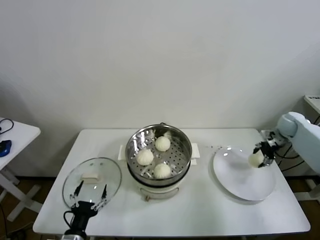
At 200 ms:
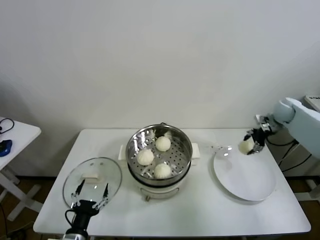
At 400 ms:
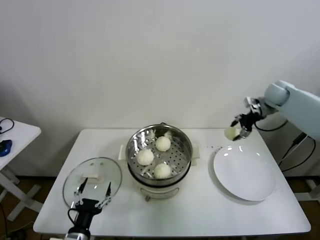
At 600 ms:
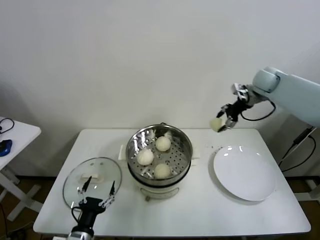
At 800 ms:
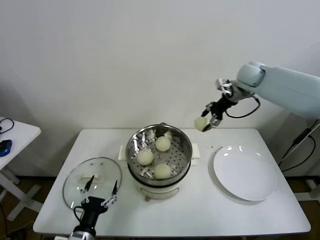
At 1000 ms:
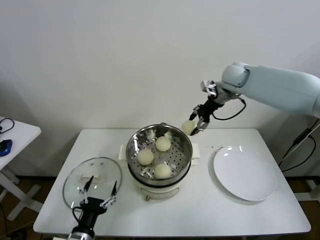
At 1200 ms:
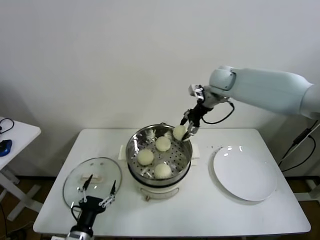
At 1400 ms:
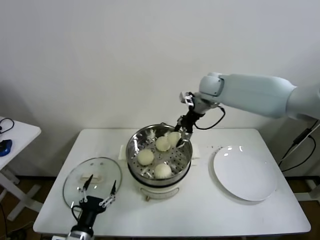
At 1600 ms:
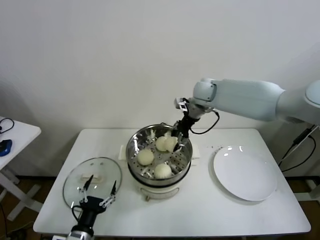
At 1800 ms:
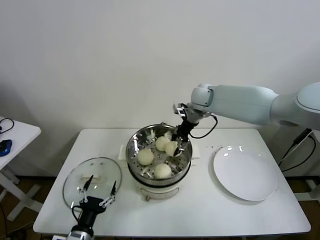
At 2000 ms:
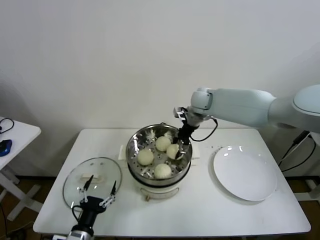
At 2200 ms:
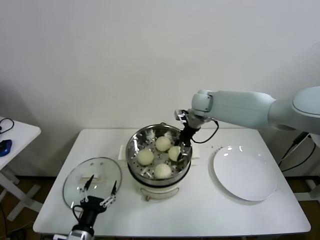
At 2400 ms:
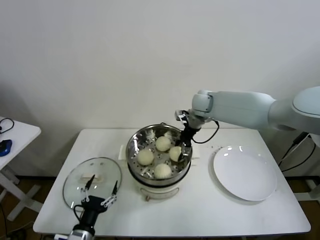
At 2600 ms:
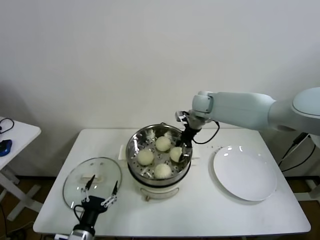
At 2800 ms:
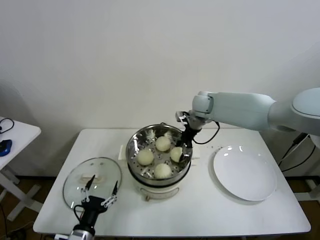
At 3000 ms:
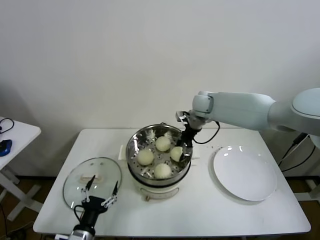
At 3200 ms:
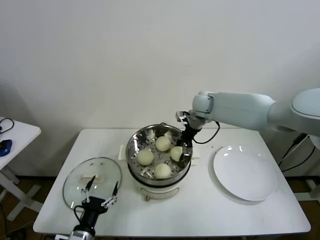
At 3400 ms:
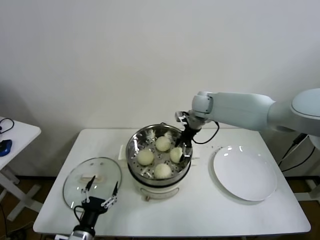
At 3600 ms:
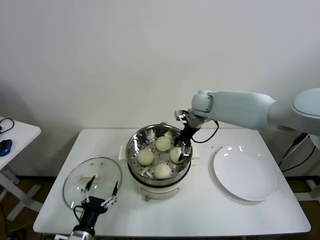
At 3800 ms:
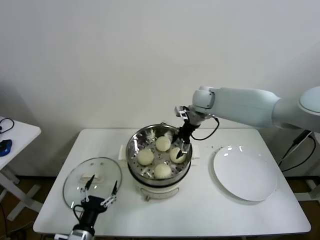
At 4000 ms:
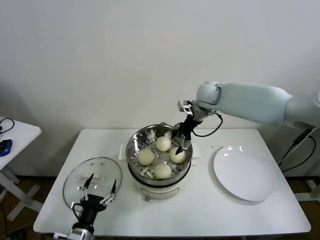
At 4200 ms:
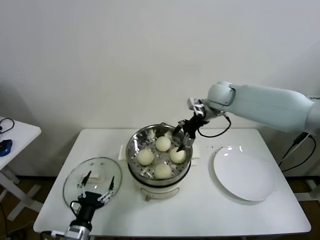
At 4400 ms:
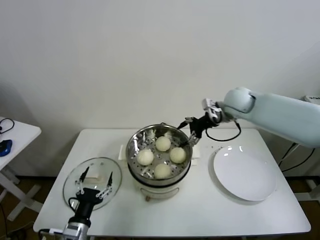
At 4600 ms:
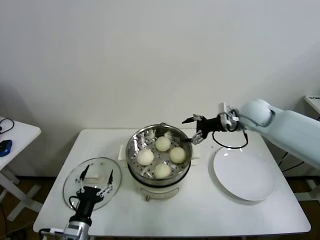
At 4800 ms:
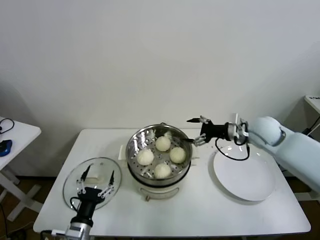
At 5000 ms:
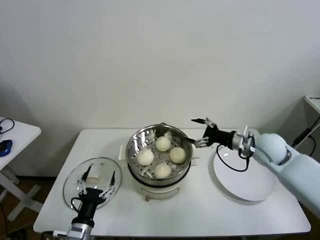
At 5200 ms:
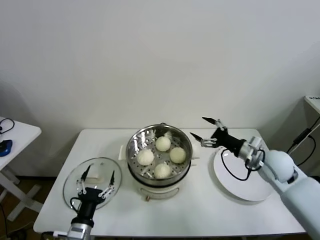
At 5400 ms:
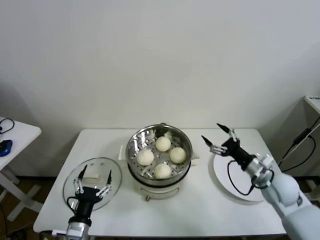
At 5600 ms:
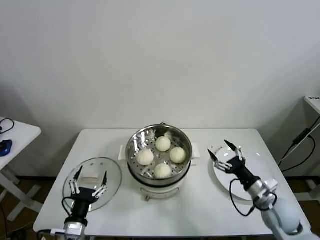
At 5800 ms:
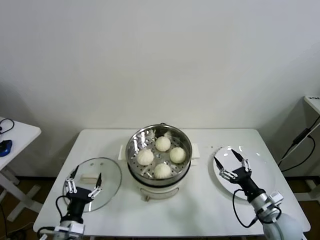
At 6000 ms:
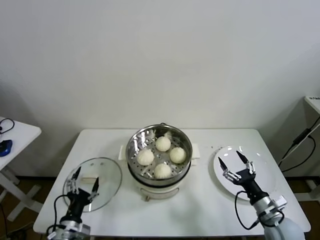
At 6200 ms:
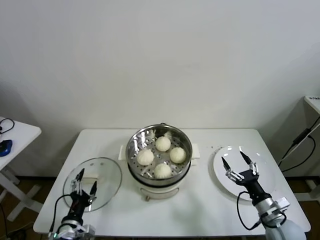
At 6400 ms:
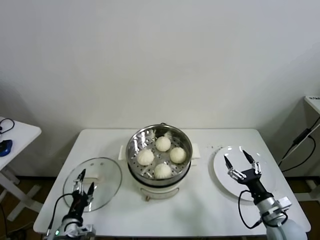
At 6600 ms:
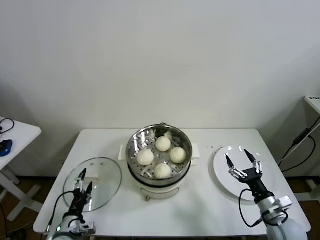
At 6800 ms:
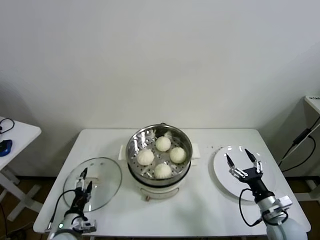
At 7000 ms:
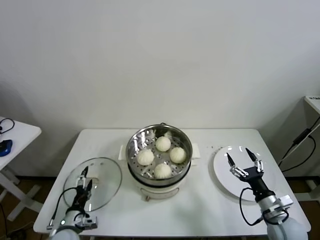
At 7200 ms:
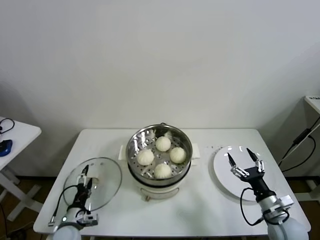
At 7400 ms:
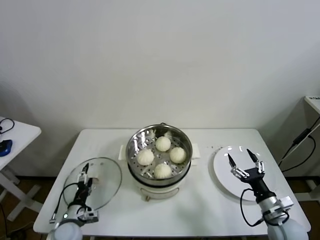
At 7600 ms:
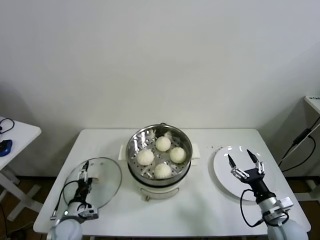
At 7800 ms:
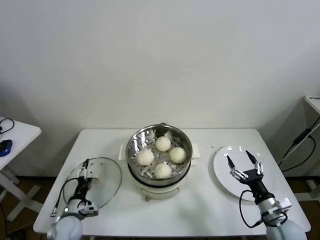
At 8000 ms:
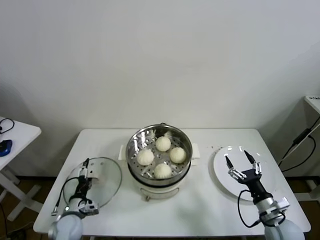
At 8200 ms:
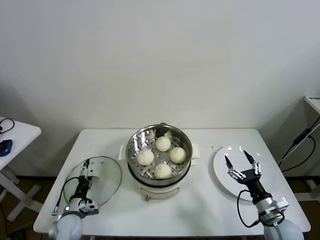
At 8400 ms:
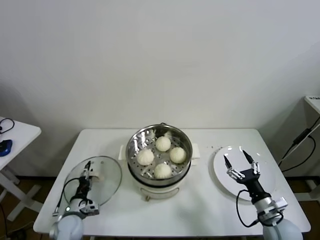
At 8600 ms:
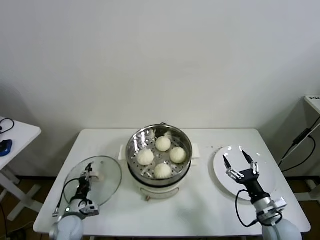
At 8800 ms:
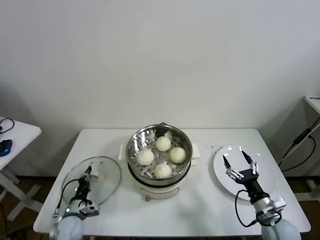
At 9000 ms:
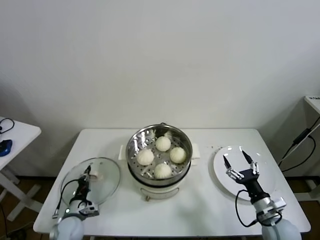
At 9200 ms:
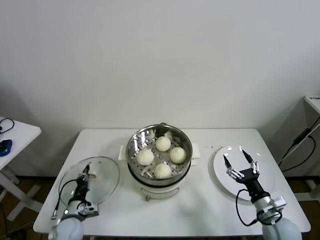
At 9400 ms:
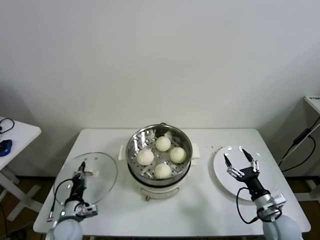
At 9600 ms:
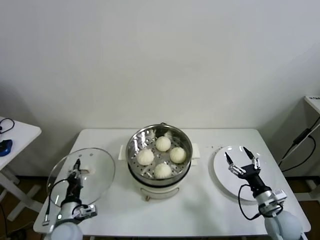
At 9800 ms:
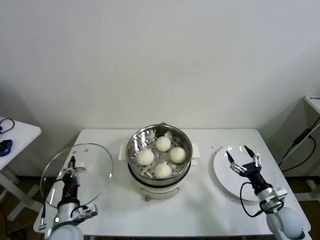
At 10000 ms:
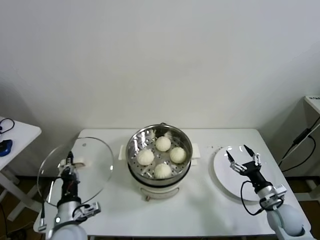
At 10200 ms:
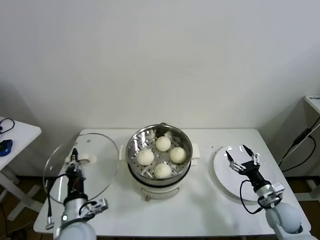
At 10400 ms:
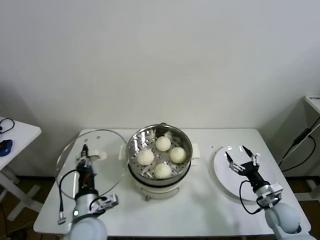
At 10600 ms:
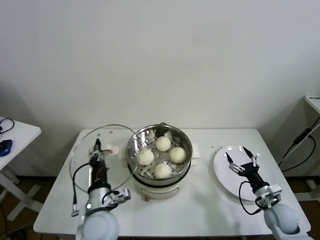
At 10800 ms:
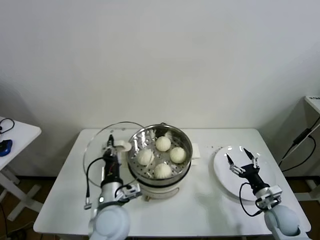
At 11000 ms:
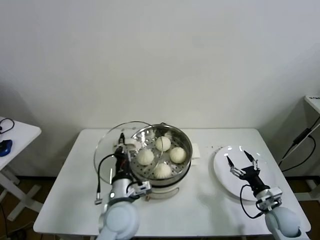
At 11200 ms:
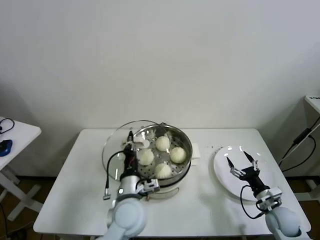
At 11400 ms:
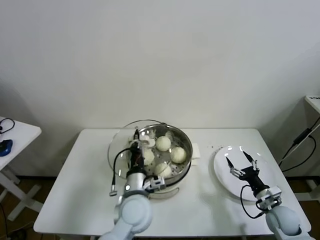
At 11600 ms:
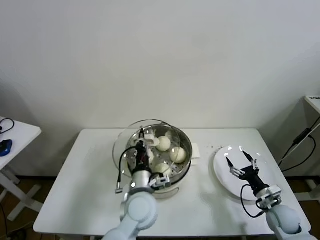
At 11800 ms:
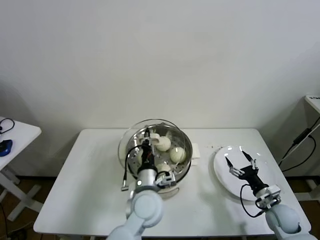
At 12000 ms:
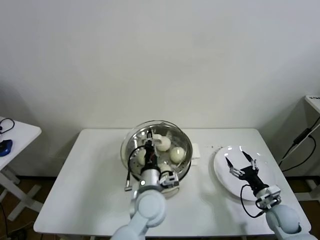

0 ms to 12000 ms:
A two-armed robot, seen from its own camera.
Task of the whole recording: take steamed baozi put them in steamer.
Step, 0 ms to 3600 ms: Place the baozi on the steamer with right gripper.
Step, 3800 ms to 8800 ms: Grasp the pot lid with left gripper.
0 ms to 1600 ms: The right gripper travels to the left by approximately 35 cm.
1600 ms to 3000 ms: The grippers make only small movements.
3000 ms to 4400 ms: The right gripper moves to the right and backward, approximately 10 cm, and opens up.
4400 ms to 6000 ms: The right gripper is displaced backward and downward by roughly 40 cm.
6000 ms to 7600 ms: The left gripper moves forward and downward, roughly 10 cm.
7600 ms to 9000 ms: The left gripper closes up.
9000 ms to 10400 ms: The left gripper heads upward and to the right, covering roughly 20 cm. Meanwhile the right gripper travels forward by about 5 cm.
10400 ms to 12000 ms: The left gripper goes approximately 20 cm to the right and forward.

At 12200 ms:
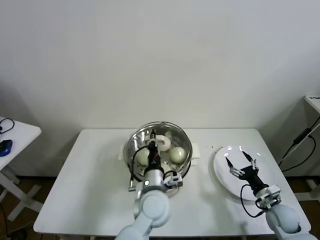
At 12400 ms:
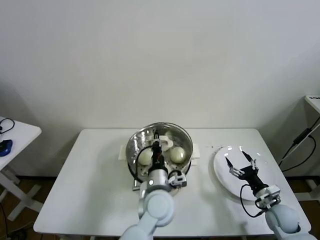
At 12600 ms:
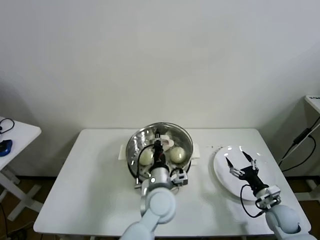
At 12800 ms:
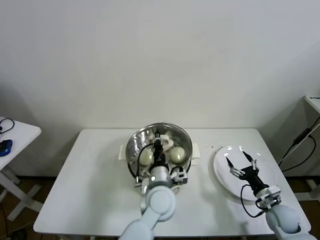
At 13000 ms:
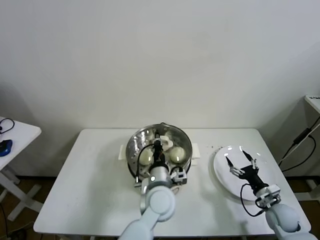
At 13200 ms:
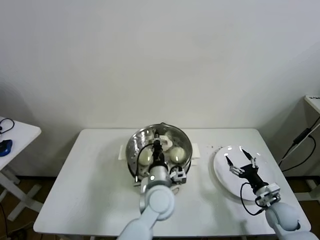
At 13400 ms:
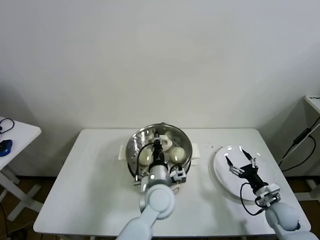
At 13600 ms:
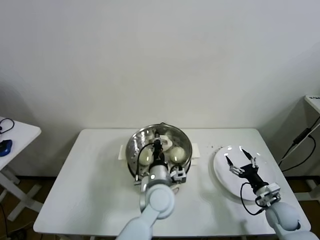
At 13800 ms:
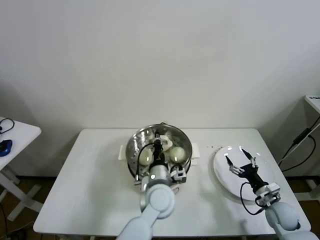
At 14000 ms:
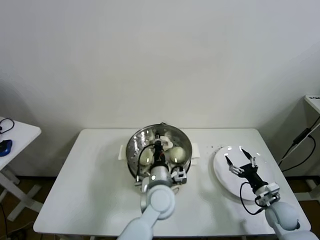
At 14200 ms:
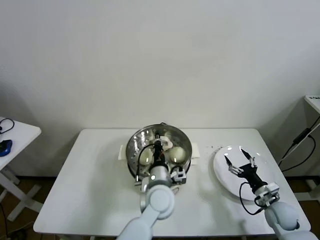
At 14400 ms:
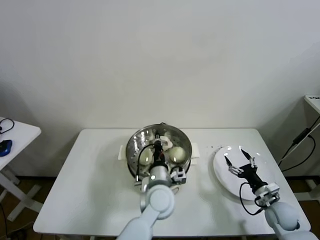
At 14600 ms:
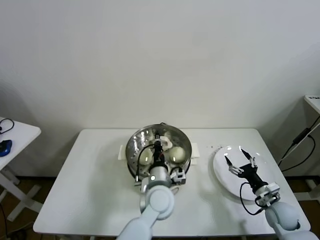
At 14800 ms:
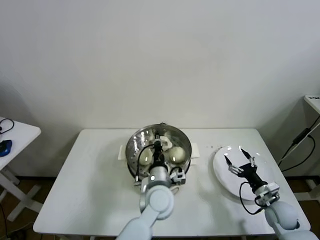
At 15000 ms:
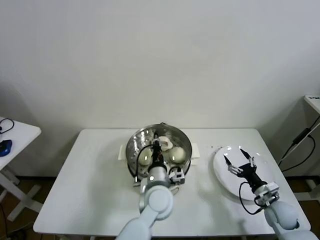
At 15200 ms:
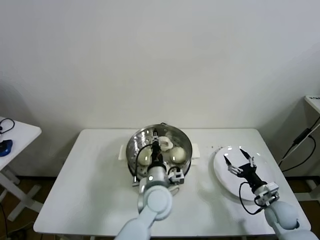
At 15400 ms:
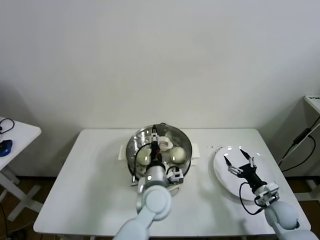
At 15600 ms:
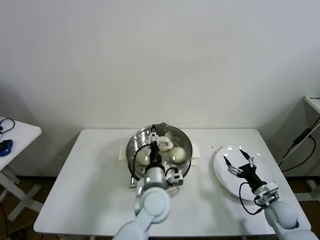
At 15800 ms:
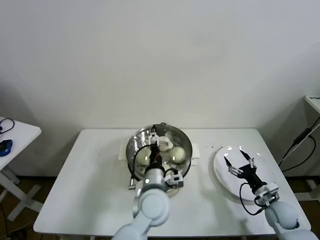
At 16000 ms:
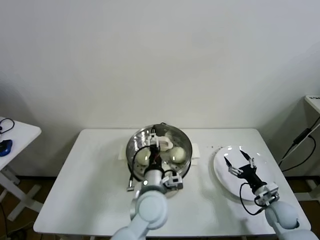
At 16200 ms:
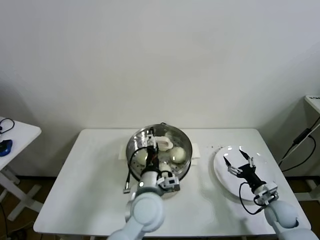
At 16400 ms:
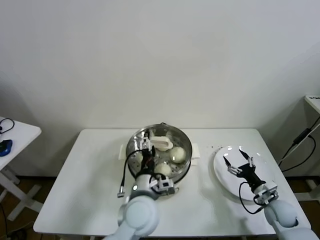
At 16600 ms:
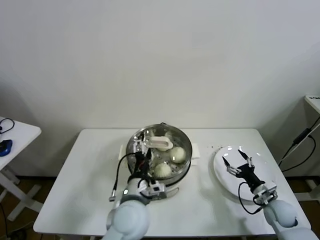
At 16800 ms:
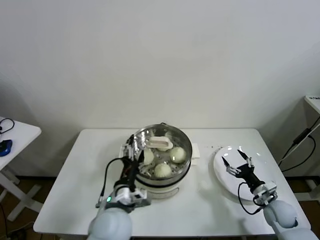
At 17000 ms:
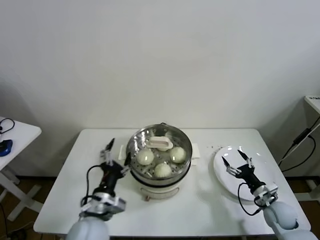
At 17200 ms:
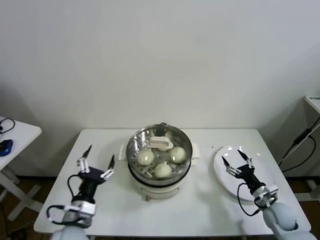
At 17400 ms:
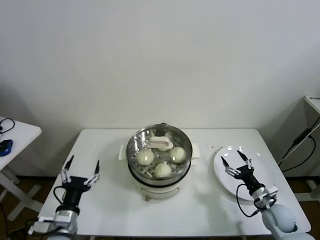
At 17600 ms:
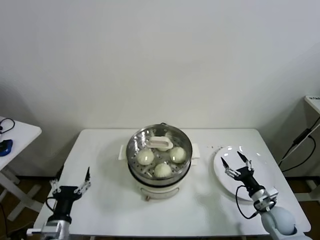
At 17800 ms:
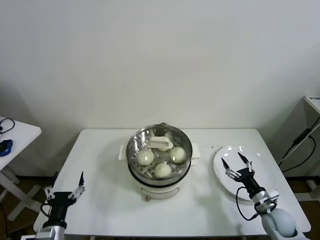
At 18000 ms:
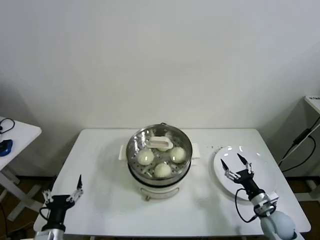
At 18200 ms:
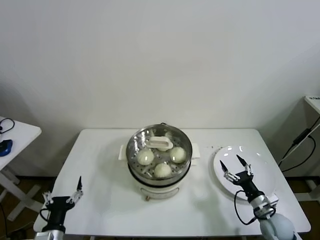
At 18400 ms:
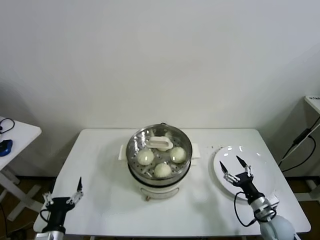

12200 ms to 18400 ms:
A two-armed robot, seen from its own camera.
Task of the whole recording: take steamed baozi put them in steamer.
Step, 12200 ms to 16200 ms: Place the pot lid on the steamer with left gripper.
12200 ms to 13800 ms: The grippers make only small movements.
13800 ms to 15400 ms: The left gripper opens up.
15400 ms to 16800 ms: The left gripper is displaced to the left and backward by approximately 10 cm, and opens up.
16800 ms to 18400 ms: The left gripper moves to the left, downward and backward, approximately 25 cm; the right gripper changes place by approximately 5 cm.
